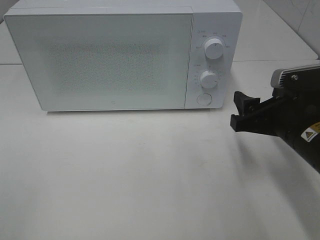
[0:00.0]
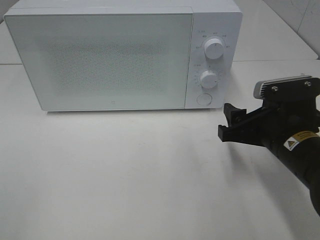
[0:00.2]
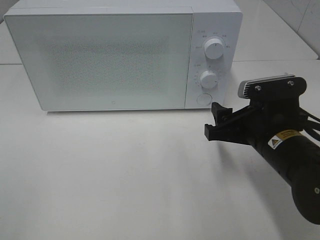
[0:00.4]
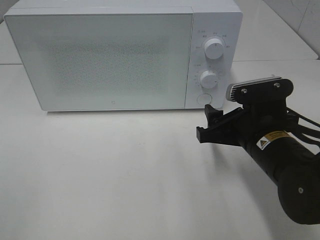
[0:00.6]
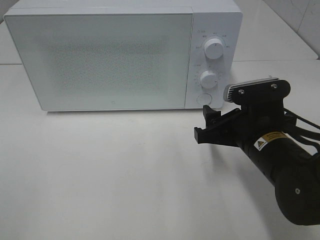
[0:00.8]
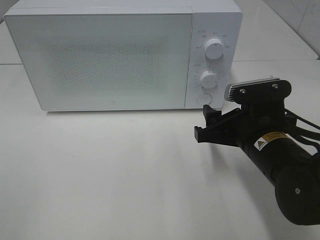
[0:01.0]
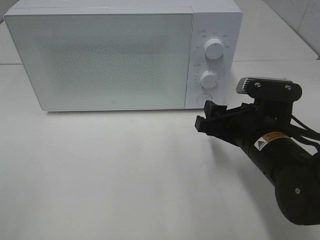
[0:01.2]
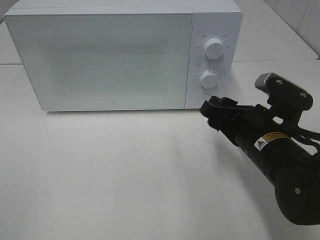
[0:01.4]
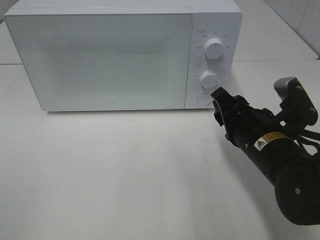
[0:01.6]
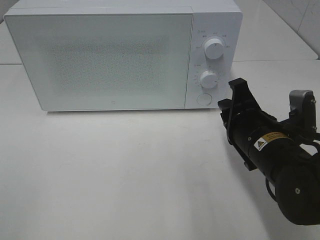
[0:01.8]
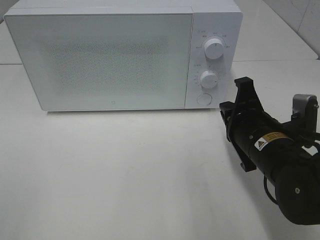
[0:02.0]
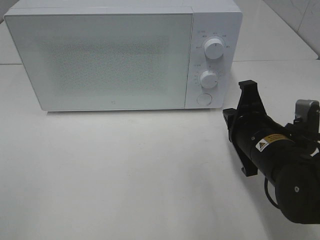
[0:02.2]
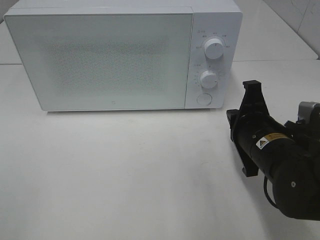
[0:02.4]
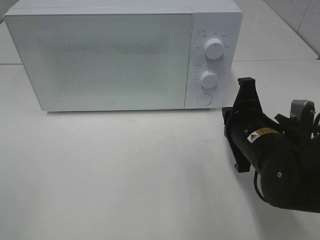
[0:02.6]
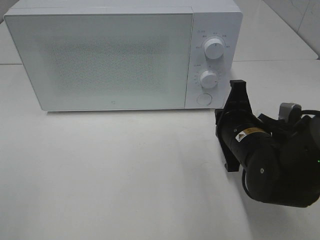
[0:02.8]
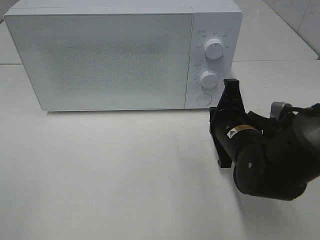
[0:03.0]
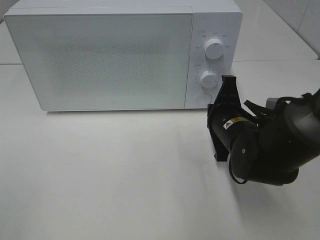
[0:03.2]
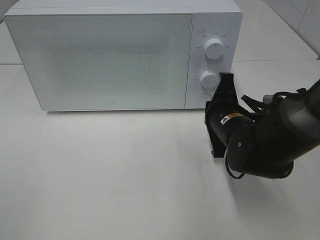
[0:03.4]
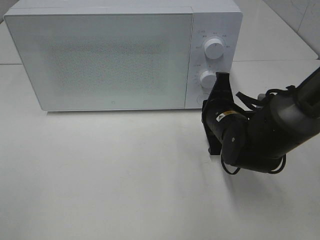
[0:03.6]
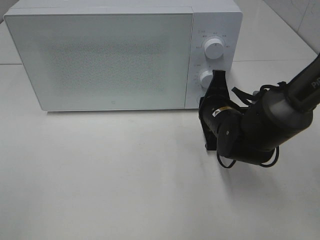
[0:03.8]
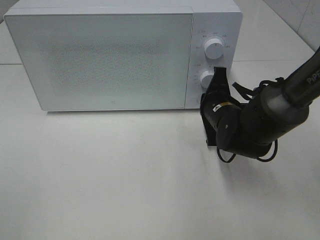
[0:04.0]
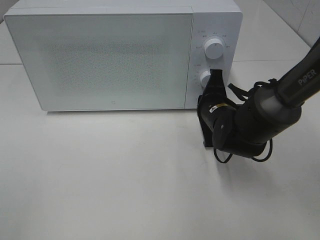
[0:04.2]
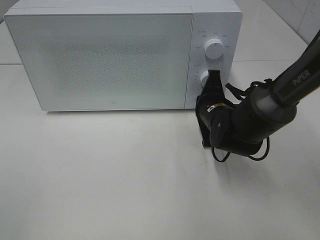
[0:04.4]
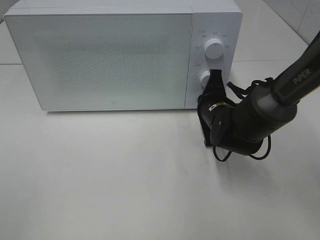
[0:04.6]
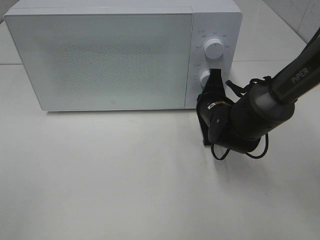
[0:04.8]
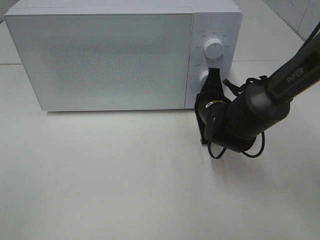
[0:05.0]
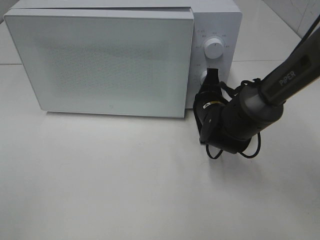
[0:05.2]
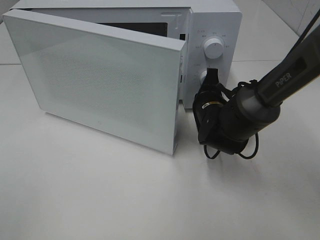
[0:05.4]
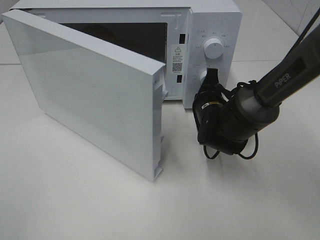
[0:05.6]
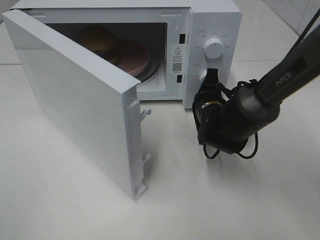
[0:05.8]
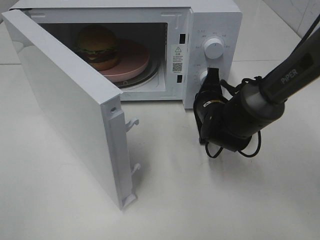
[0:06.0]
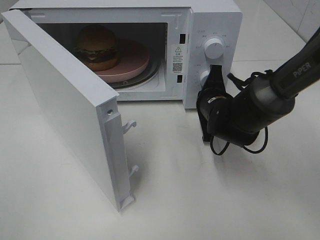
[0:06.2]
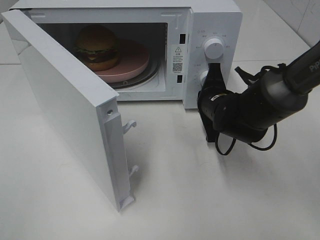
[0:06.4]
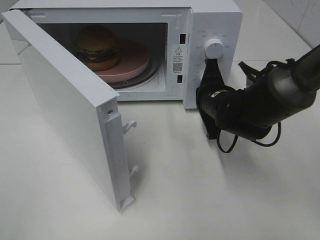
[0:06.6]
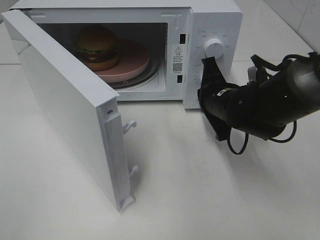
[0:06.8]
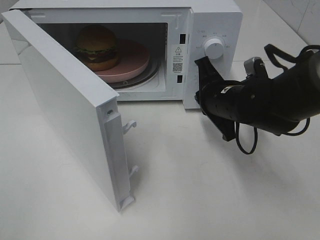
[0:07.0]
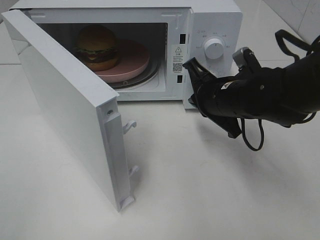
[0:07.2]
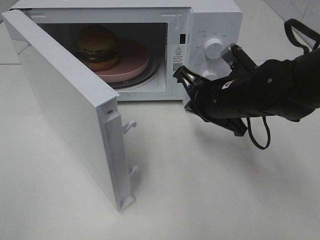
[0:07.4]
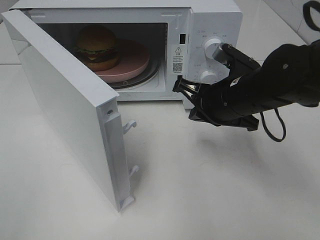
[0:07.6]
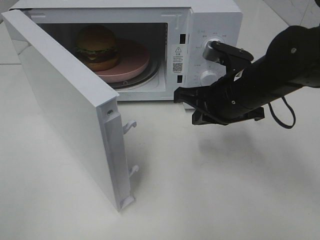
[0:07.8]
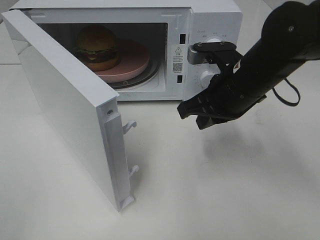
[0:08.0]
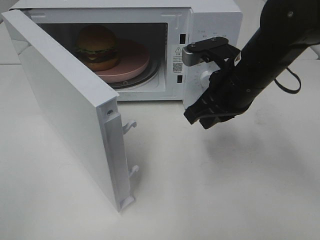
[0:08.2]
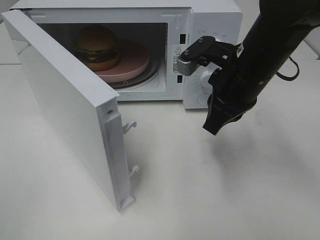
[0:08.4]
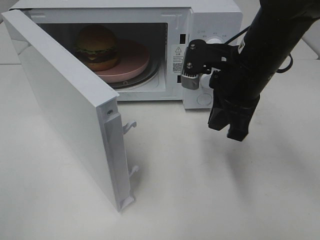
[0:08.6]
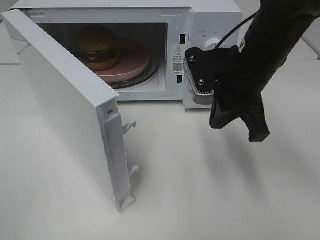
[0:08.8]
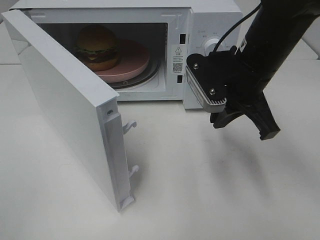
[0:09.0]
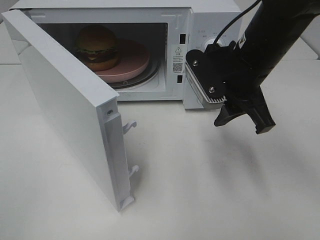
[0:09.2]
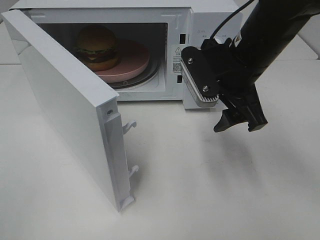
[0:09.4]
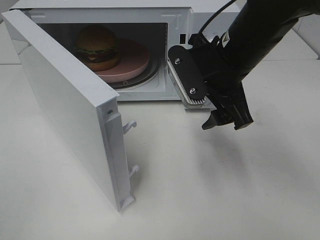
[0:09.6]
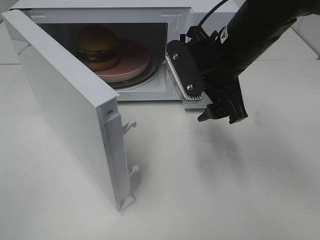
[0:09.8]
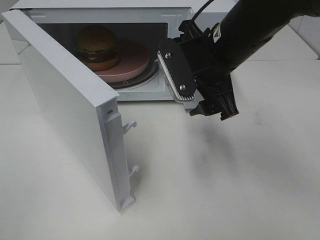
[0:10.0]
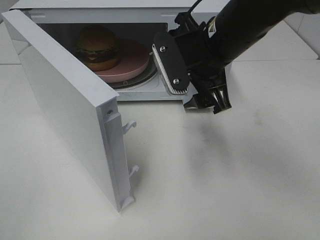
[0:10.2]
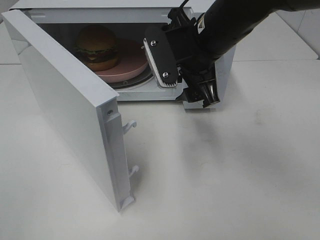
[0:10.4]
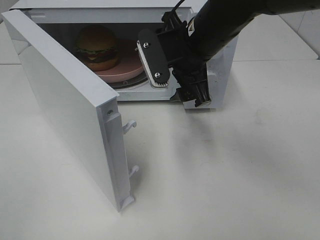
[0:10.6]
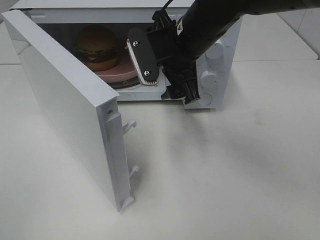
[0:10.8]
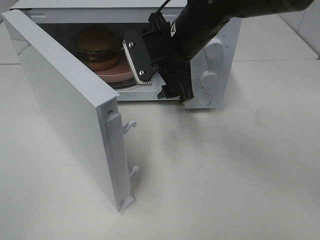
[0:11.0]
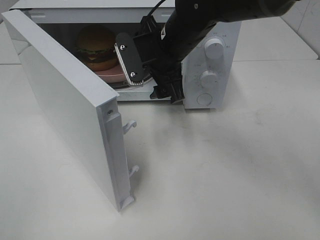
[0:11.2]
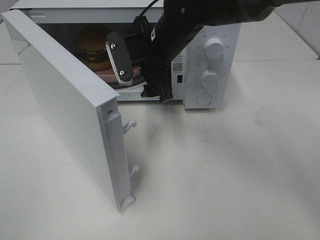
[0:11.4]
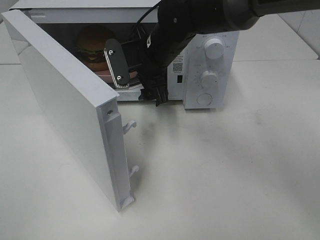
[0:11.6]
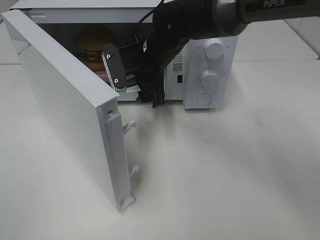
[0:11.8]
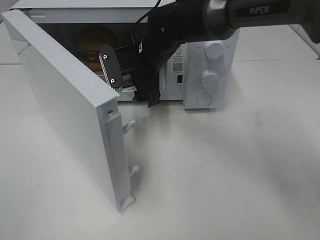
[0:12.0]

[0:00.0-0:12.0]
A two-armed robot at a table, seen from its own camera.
Task of the whole recording: Heat the burger.
Step, 0:00.0 to 0:06.8: Right hand: press the switch.
0:00.0 to 0:01.6: The right gripper shifts roughly 5 cm to the left.
0:01.6 to 0:03.0: The right gripper closes its fingers.
0:03.0 to 0:04.4: The right gripper heads forward, covering roughly 10 cm.
0:06.0 to 0:07.6: The right gripper goes some 10 cm upward and backward.
0:07.6 to 0:09.0: The right gripper is displaced upward by roughly 5 cm.
0:09.0 to 0:10.4: The right gripper goes about 5 cm to the left, and opens up.
0:10.4 to 0:12.0: The right gripper travels forward, to the left and downward by approximately 15 cm.

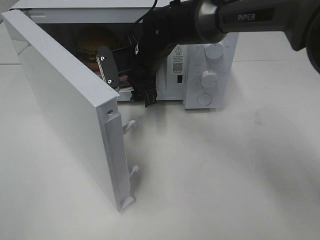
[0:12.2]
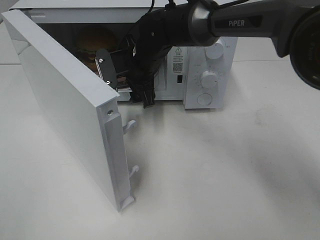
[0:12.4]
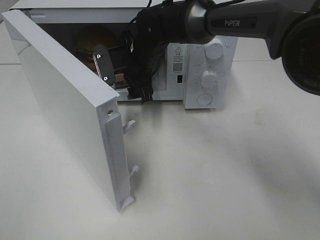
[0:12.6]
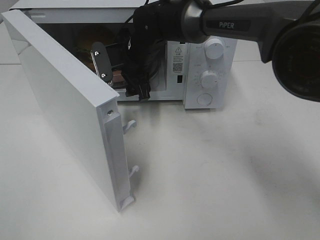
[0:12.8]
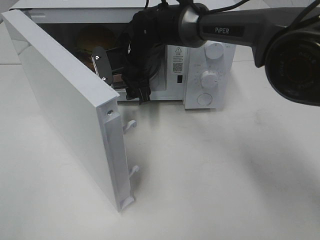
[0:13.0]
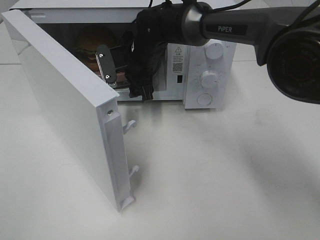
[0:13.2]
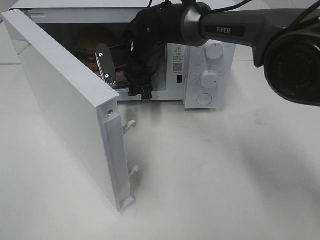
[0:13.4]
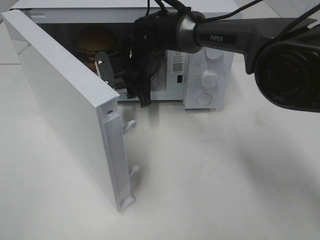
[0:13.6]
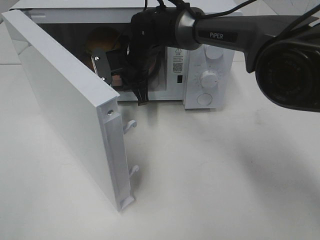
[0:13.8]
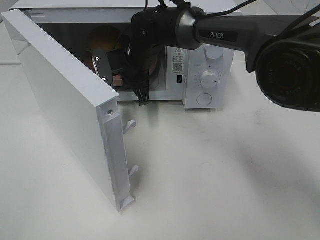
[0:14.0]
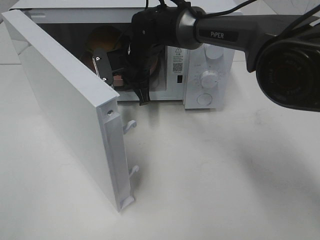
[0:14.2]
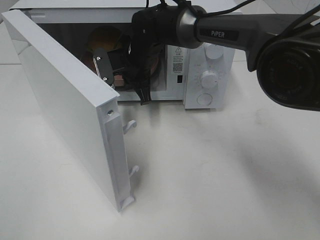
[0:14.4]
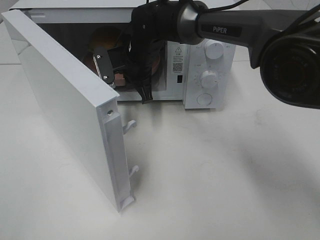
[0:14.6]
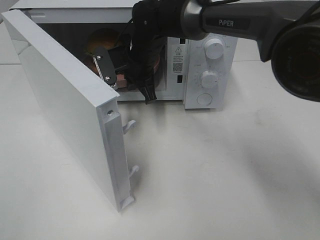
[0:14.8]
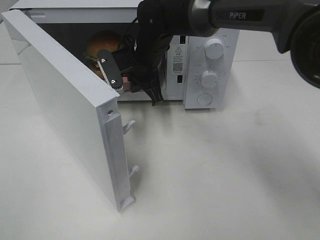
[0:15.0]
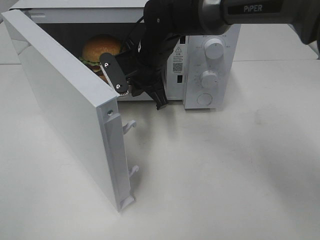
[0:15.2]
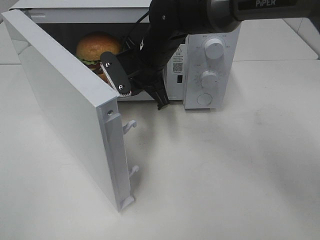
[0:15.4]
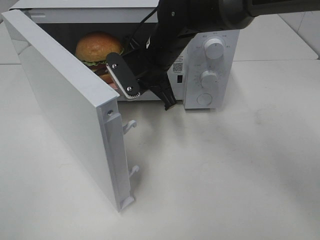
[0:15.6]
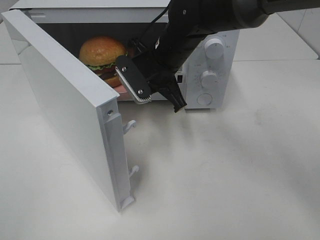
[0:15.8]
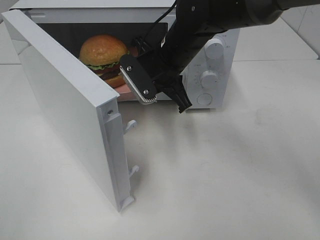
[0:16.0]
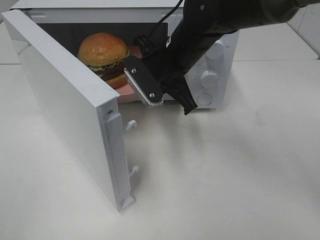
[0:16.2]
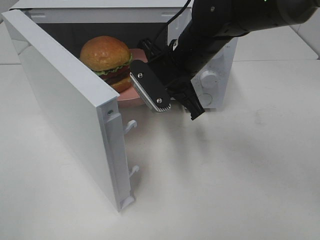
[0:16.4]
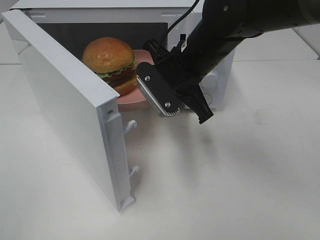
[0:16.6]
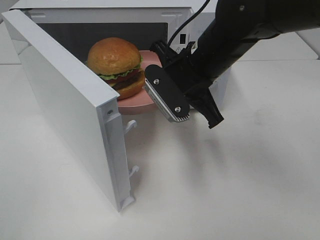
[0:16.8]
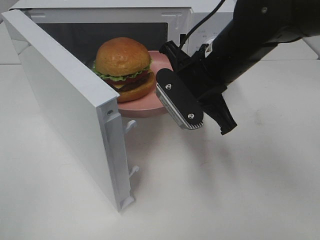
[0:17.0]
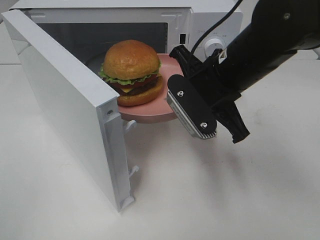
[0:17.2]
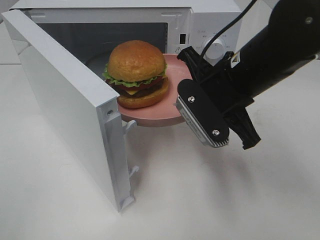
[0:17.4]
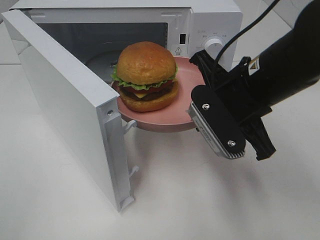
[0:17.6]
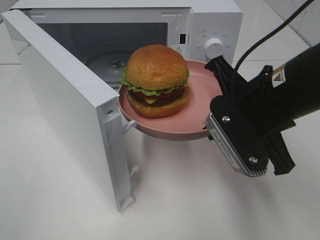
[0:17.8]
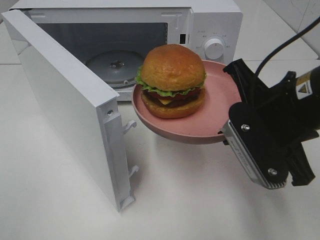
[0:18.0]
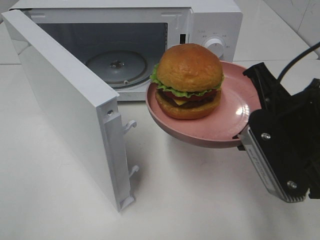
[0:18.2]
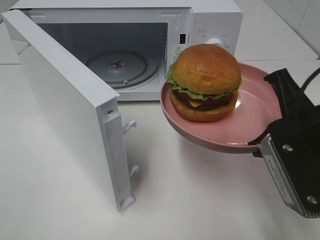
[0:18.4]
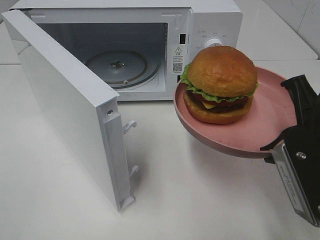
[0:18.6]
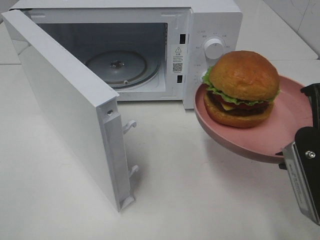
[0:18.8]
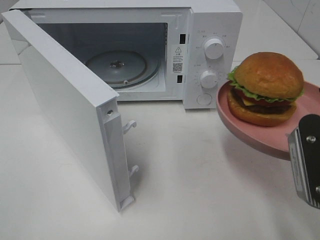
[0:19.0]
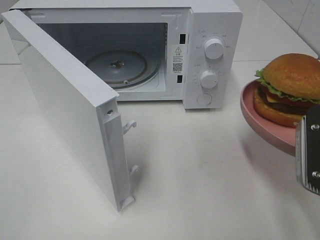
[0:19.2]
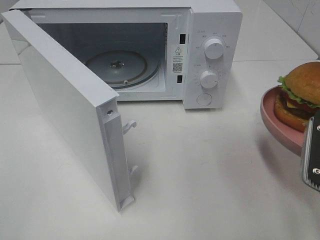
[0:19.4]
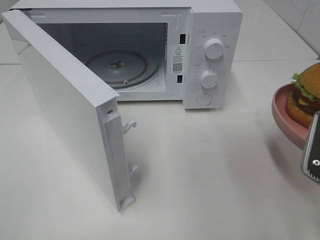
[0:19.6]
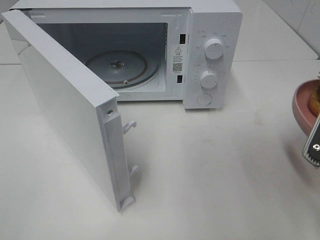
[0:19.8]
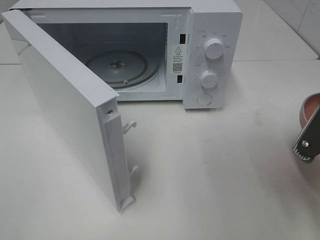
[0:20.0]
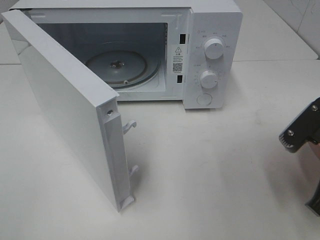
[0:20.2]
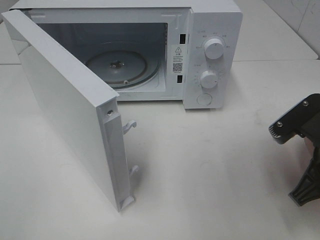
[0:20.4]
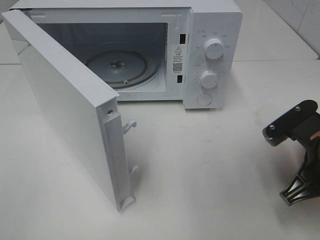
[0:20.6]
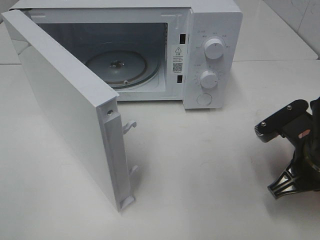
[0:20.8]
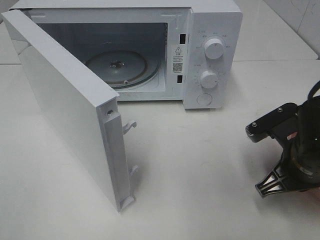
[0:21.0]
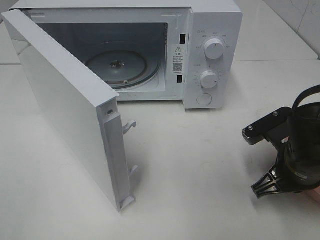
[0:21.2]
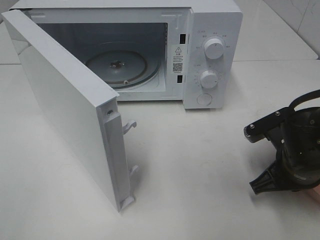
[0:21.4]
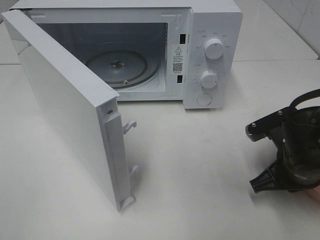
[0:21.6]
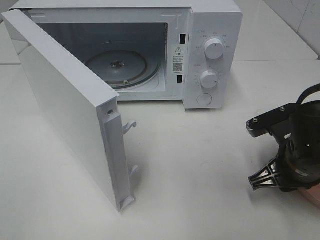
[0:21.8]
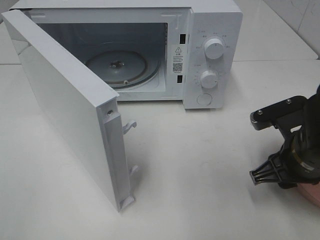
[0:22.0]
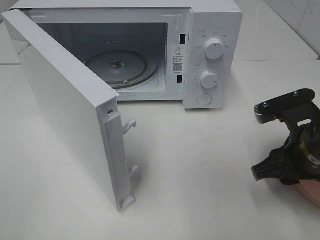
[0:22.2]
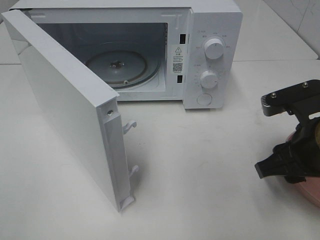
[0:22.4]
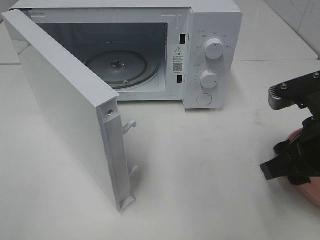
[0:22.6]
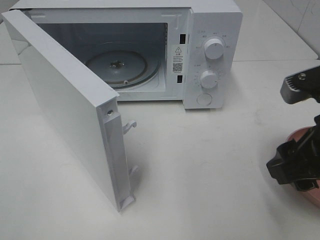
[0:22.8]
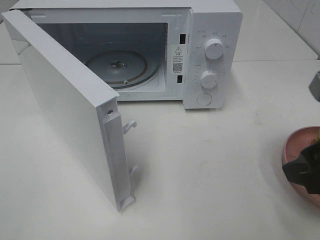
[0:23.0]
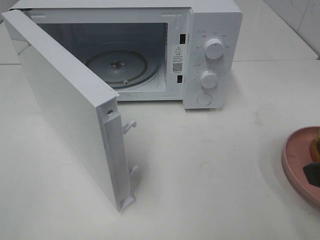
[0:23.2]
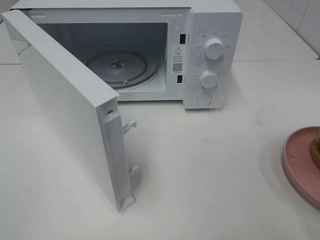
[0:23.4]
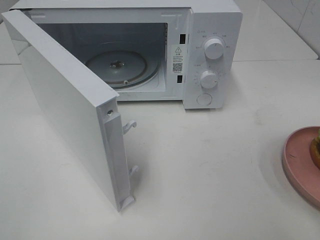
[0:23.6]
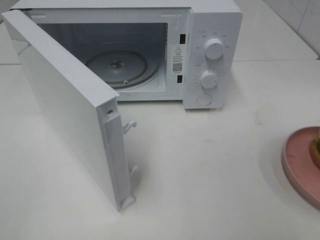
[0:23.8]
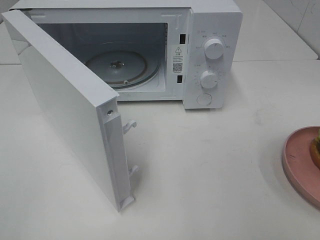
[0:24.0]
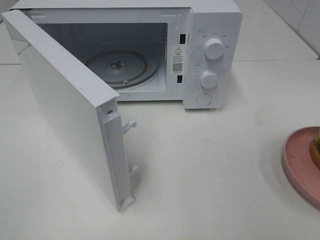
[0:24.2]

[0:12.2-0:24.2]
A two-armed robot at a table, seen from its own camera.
Task of the whole recording: Heat the burger.
Step, 0:12.2 to 0:14.2: Right hand: grab the plate with the hamburger.
Step, 0:14.4 to 0:22.4: Right hand: place the plate on the table.
0:12.2 to 0:13.8: The right gripper closes.
0:13.8 to 0:15.2: The right gripper moves some 5 cm.
0:15.2 to 0:16.6: The right gripper is displaced backward and to the right by some 10 cm.
0:16.6 to 0:18.2: The right gripper is displaced backward and to the right by approximately 20 cm.
0:18.2 to 0:19.8: The right gripper is displaced to the right by about 5 cm.
0:19.8 to 0:21.2: The right gripper travels downward and forward by approximately 10 cm.
0:21.2 to 0:22.6: The right gripper shifts about 10 cm upward, and opens.
0:22.6 to 0:24.2: The right gripper shifts approximately 20 cm backward, to the right and upward.
